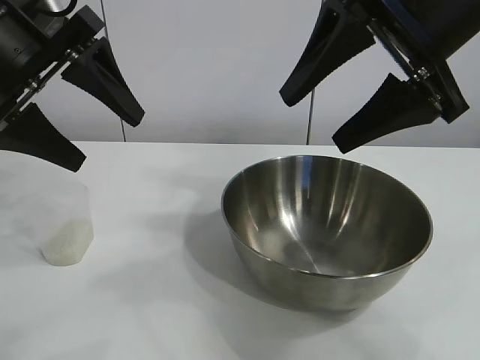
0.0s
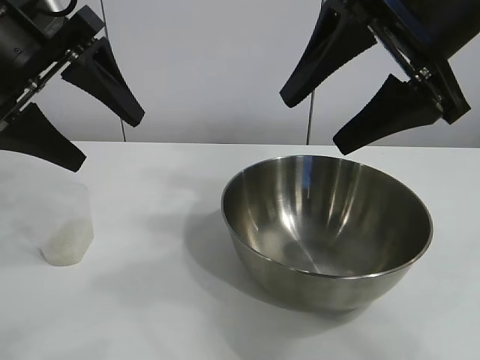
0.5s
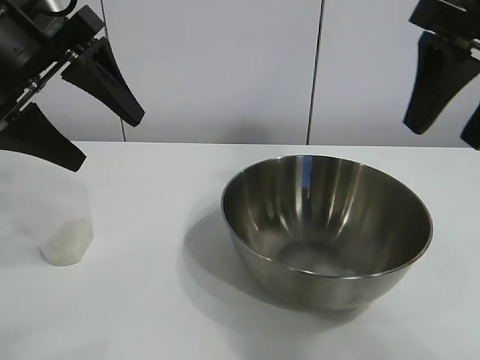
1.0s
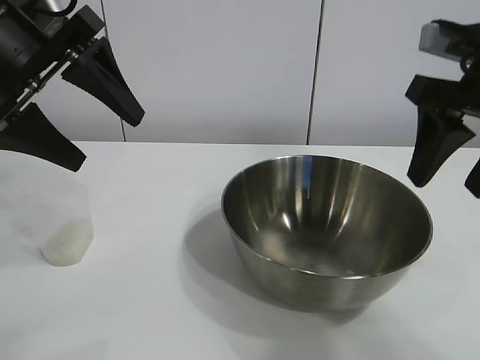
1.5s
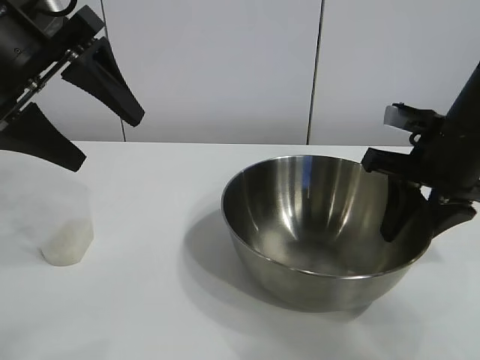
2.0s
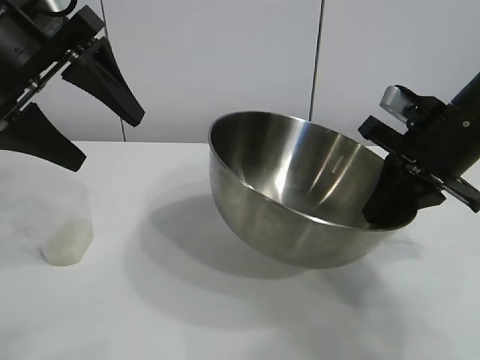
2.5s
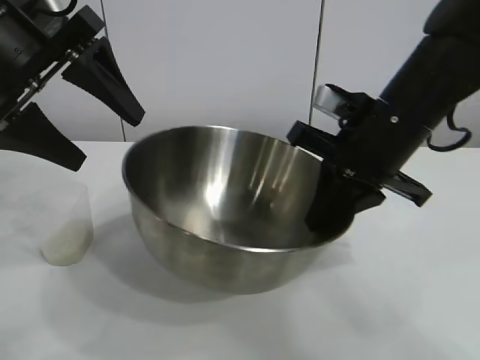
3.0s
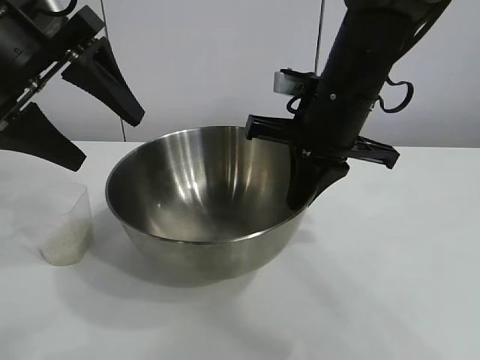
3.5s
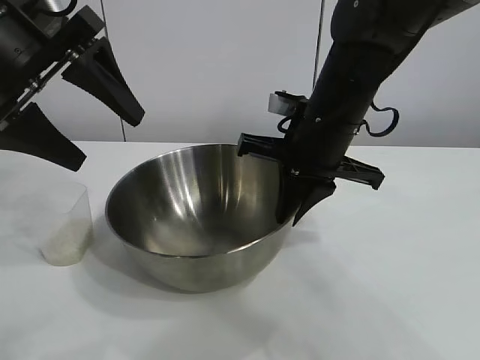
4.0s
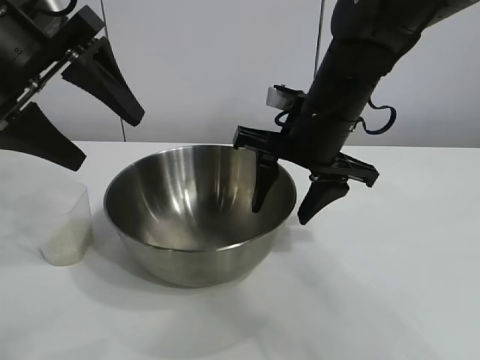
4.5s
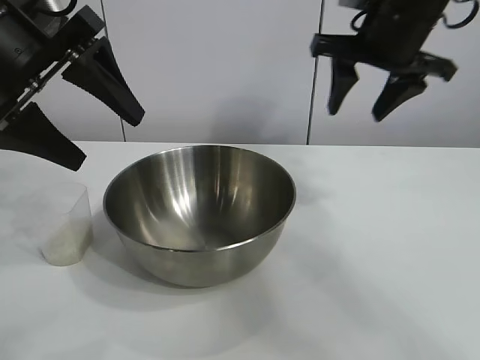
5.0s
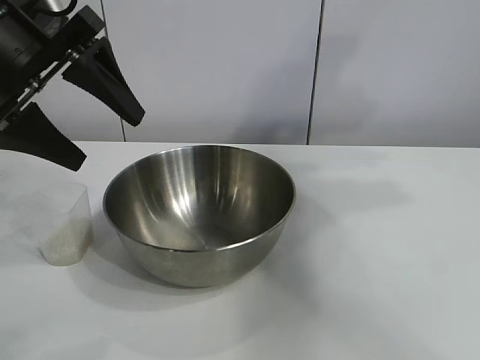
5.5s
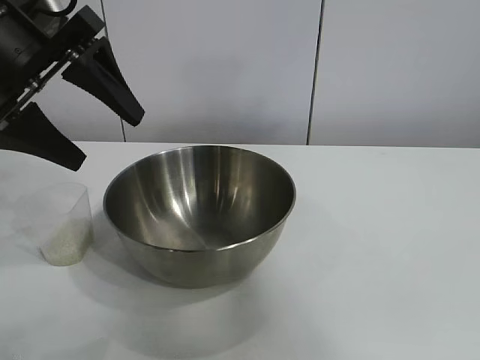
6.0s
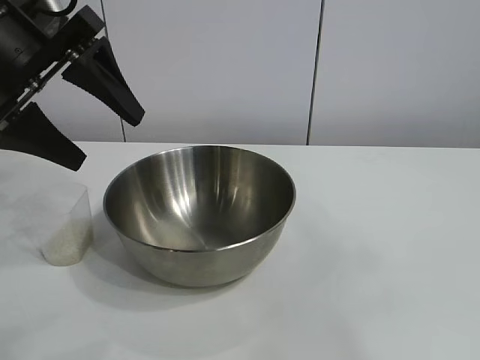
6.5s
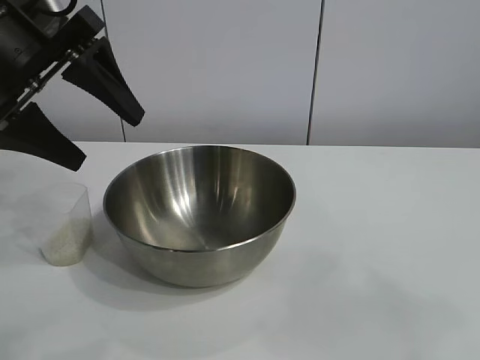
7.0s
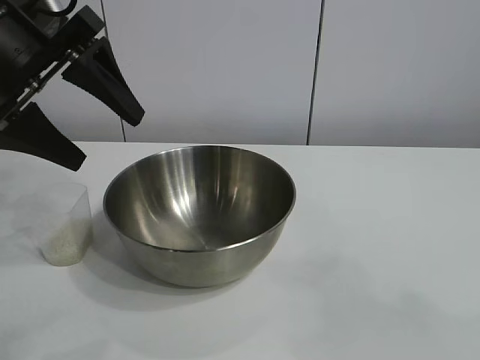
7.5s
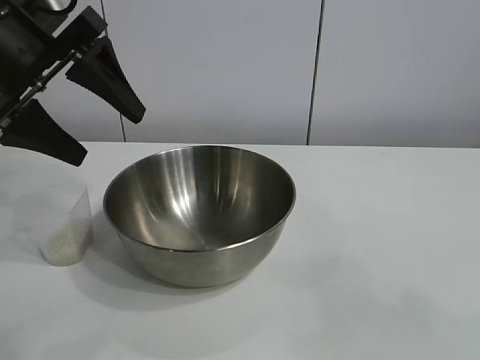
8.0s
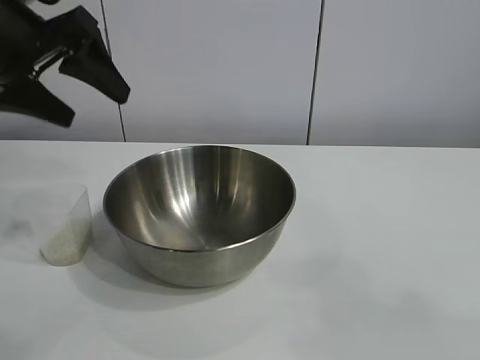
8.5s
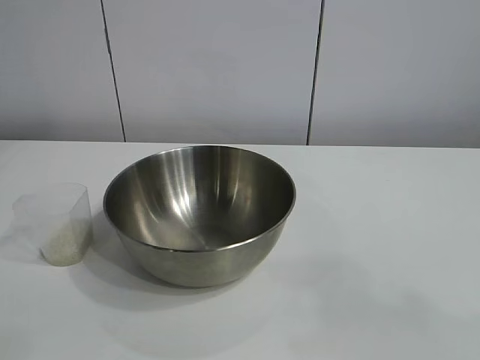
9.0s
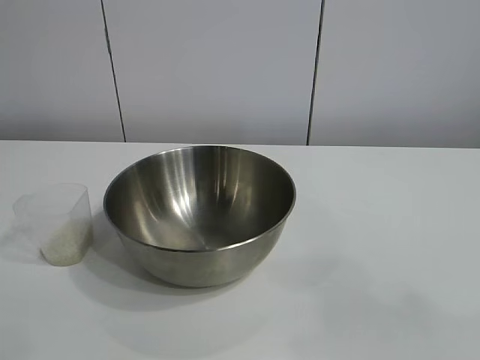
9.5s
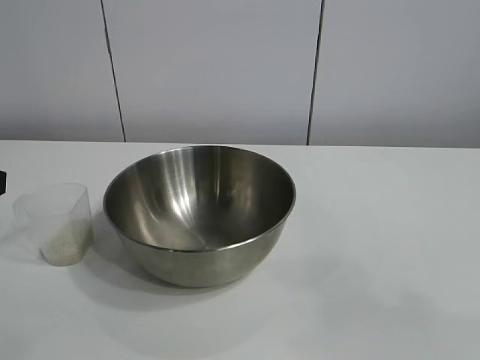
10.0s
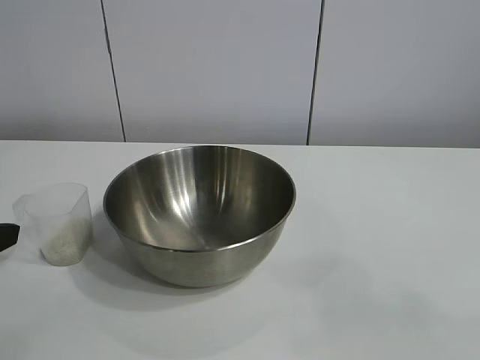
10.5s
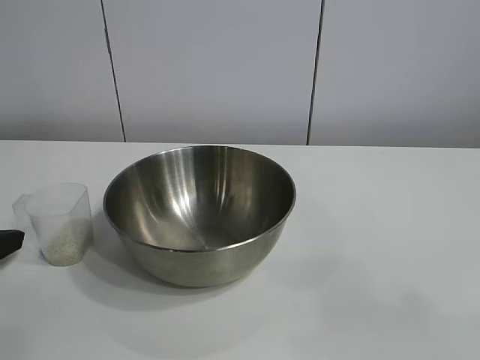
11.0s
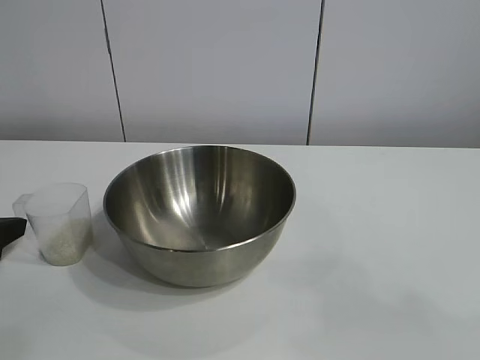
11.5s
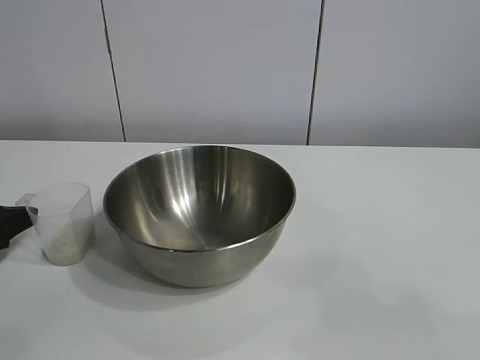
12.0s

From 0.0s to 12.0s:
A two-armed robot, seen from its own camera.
Task of the whole recording: the right gripper grasp the rice container and place it in the center of the table, the left gripper grasp the rice scoop and pour the rice into the rice container.
Step, from 1.0s to 4.5s: Move the bowl in the center of view with right gripper.

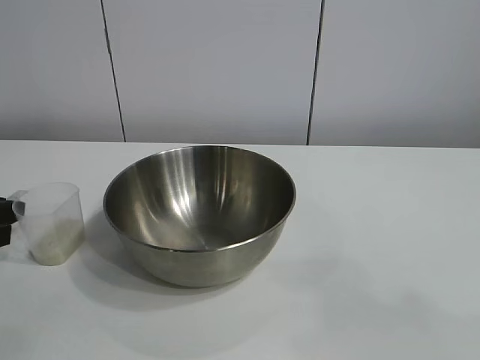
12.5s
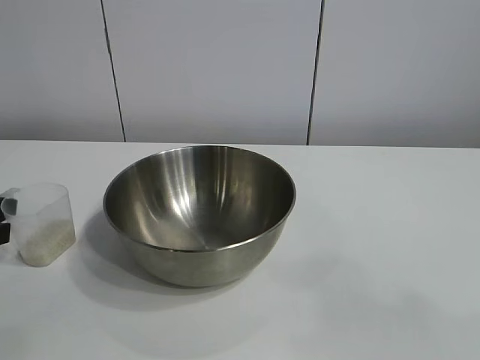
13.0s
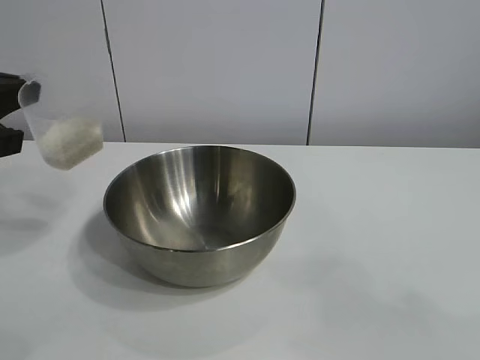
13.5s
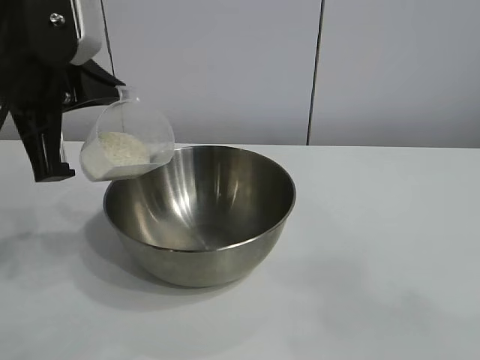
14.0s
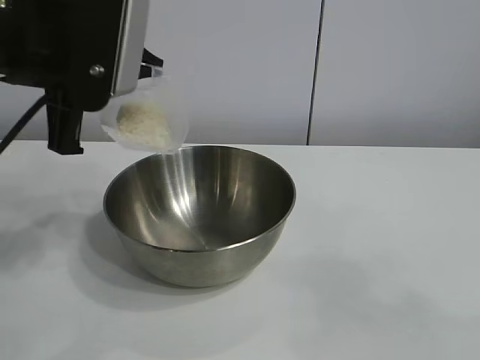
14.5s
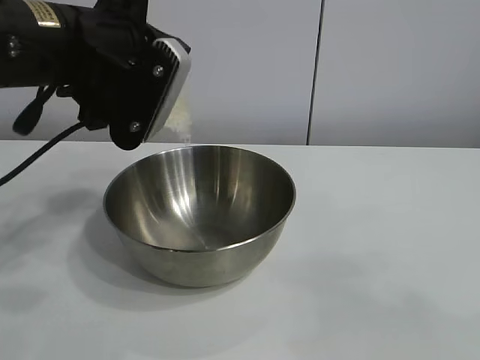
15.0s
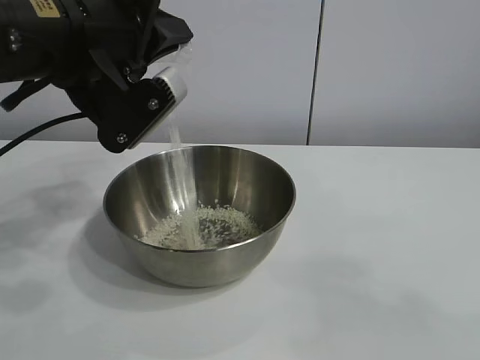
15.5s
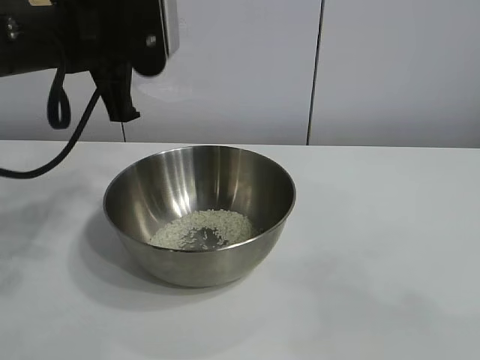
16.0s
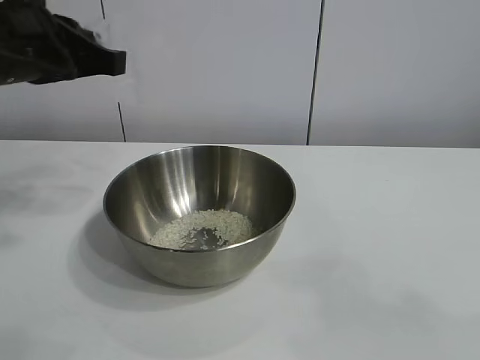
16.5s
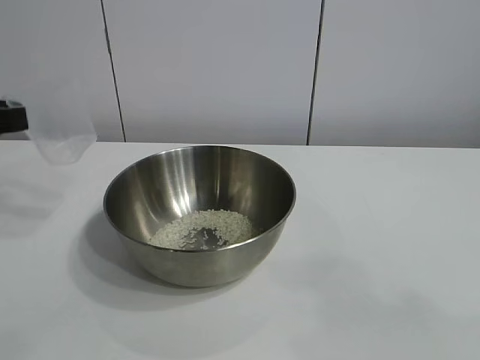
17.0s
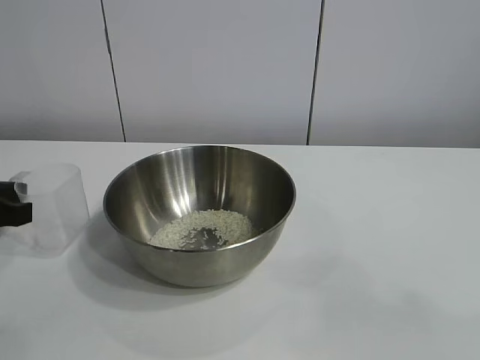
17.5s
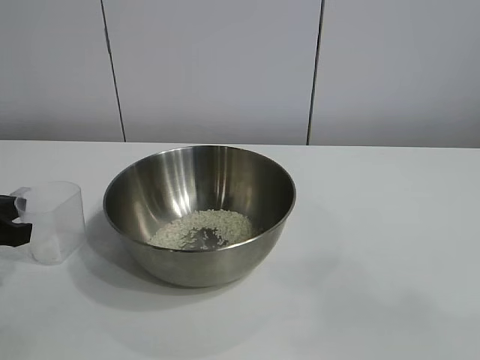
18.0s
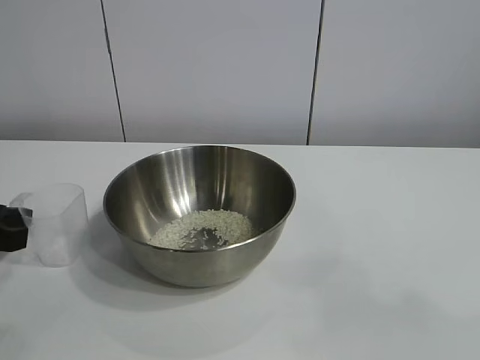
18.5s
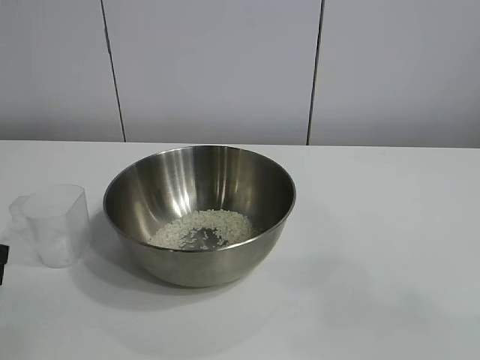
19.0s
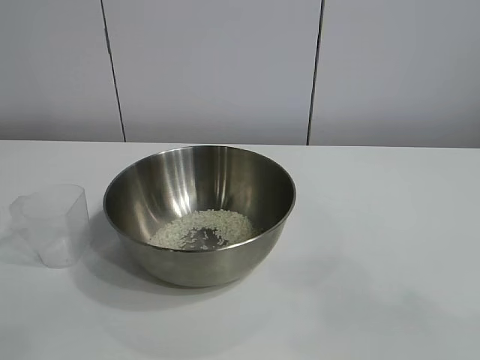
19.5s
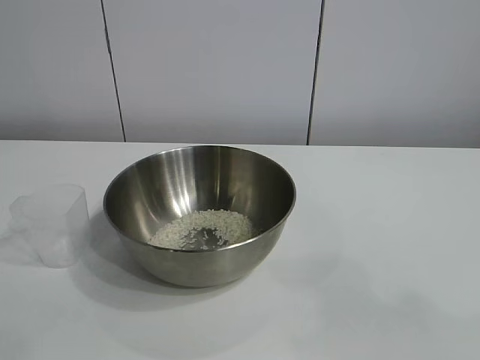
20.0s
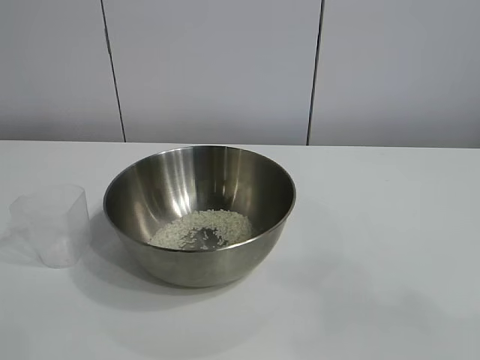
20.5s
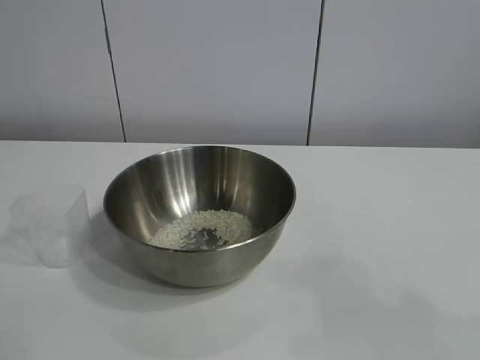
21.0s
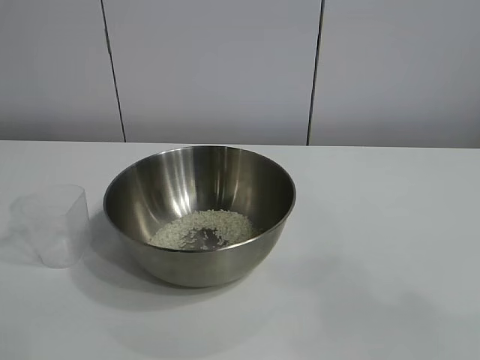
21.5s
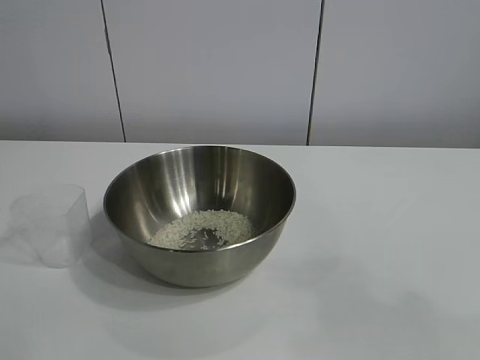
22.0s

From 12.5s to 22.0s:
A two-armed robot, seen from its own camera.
Task of the whole recording: the right gripper grasp the rice container and place it in the center of the table, the left gripper grasp the rice scoop and pour the rice into the rice container.
Step, from 13.0s to 15.5s: Pour the rice from the cup into the bowl with the left gripper.
Step, from 16.5s to 18.0s: Place the cup on the table with the left gripper.

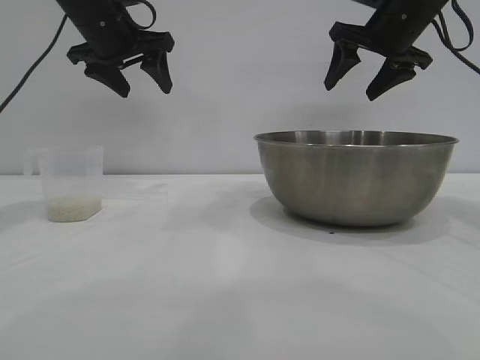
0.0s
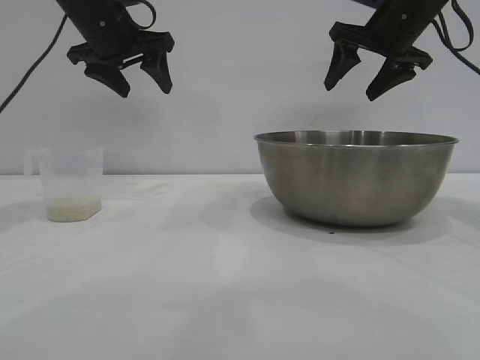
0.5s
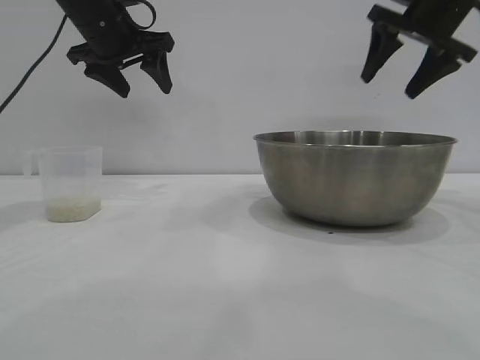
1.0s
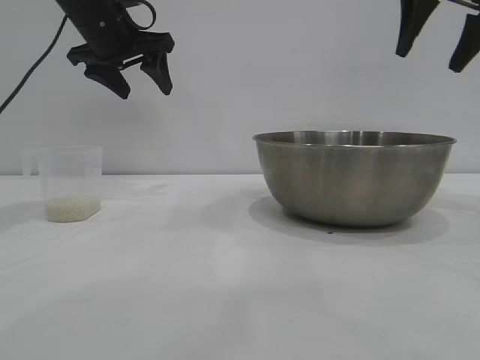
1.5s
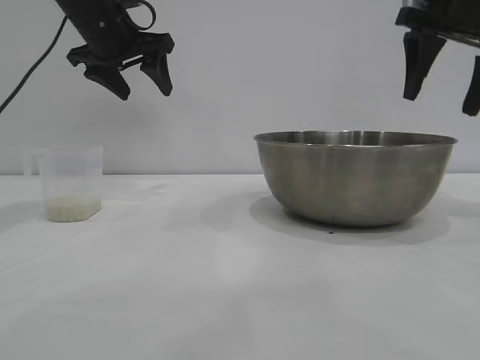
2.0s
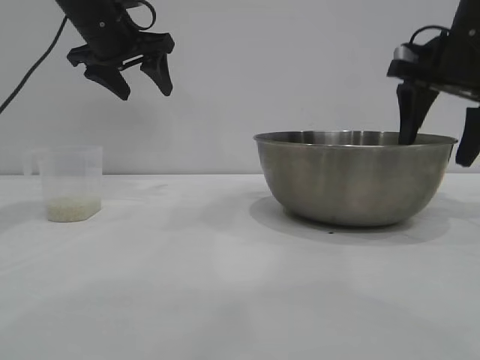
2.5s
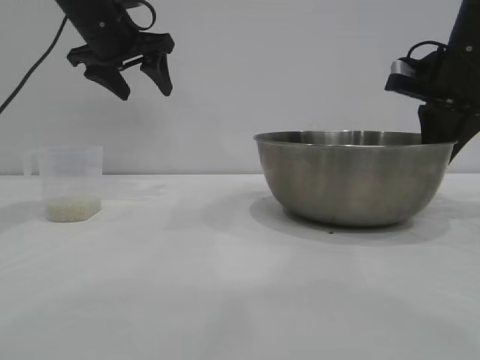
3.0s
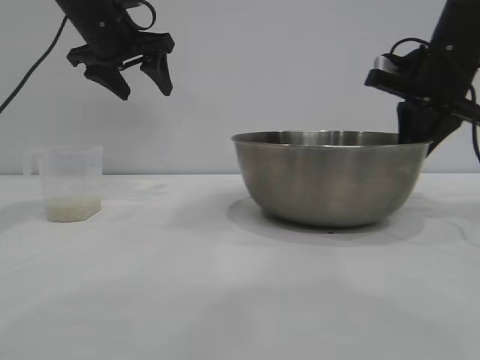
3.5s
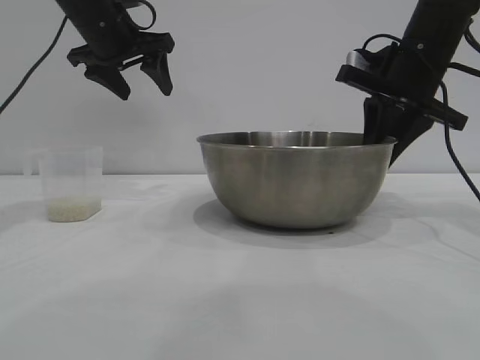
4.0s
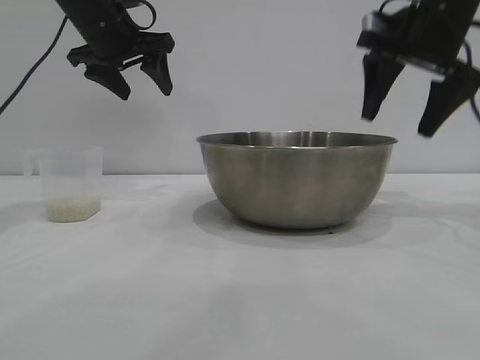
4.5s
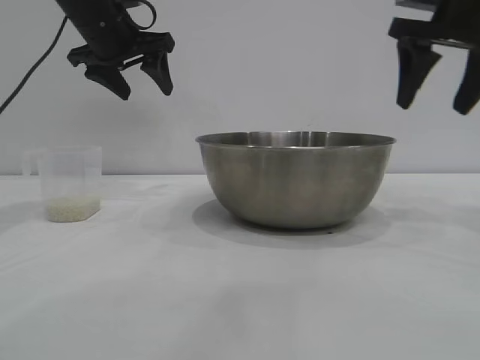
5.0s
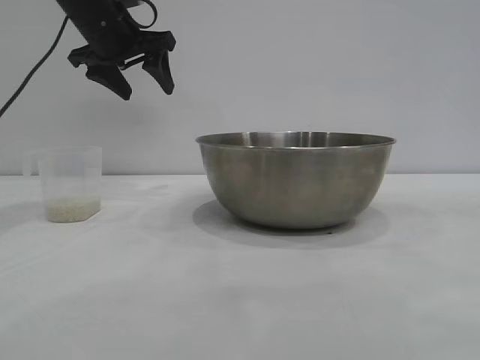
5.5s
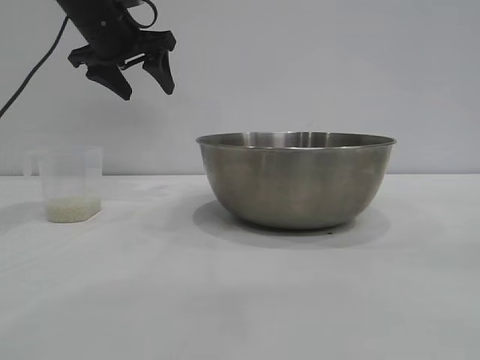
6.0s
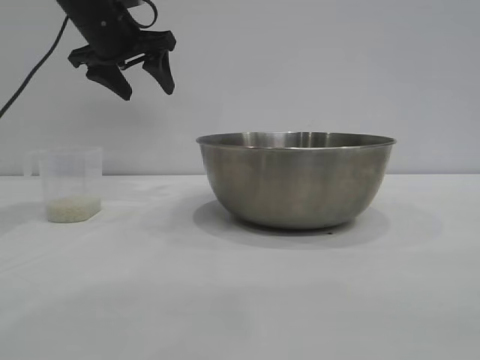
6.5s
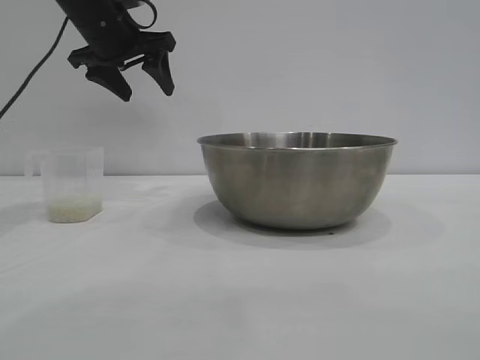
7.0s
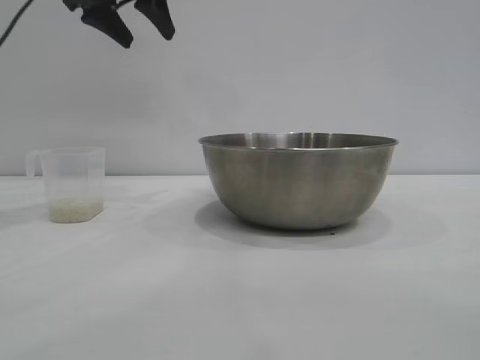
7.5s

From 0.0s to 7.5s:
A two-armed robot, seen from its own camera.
Task of the whole recording: the right gripper grasp the rice container and place it in the center of the table, the left gripper grasp the rice scoop and pour the rice into the rice container.
Step, from 0.0s to 4.5s: Move the bowl to the center of view with the right gripper.
